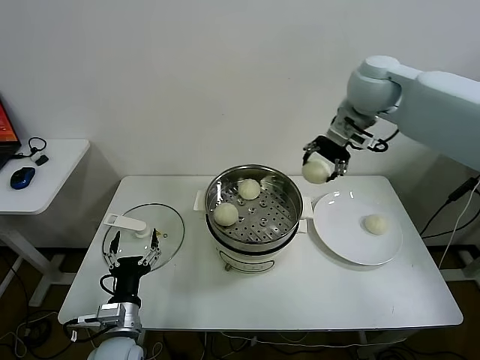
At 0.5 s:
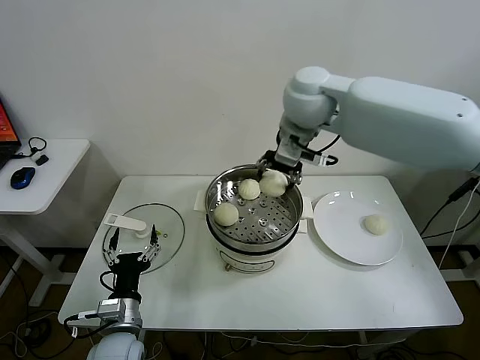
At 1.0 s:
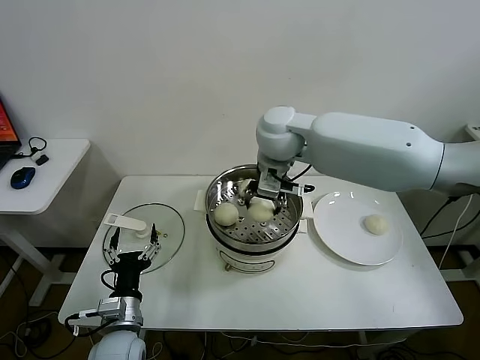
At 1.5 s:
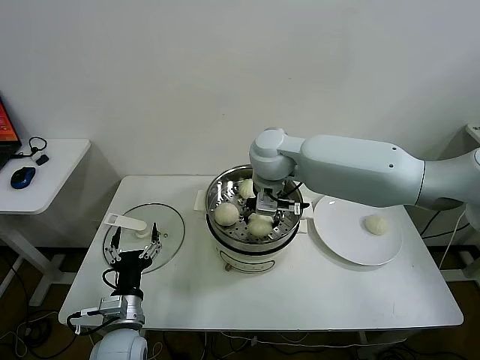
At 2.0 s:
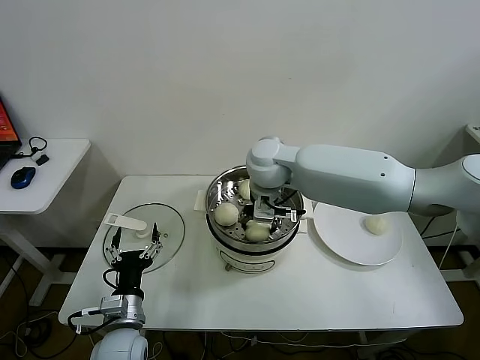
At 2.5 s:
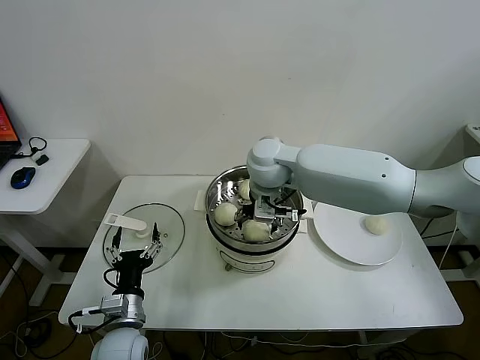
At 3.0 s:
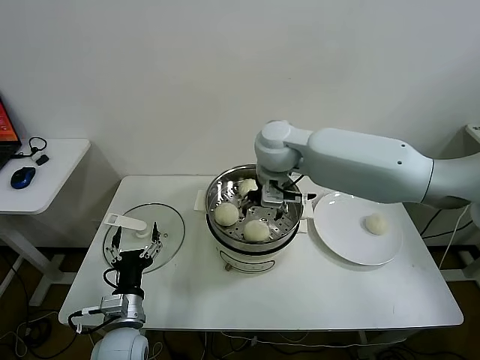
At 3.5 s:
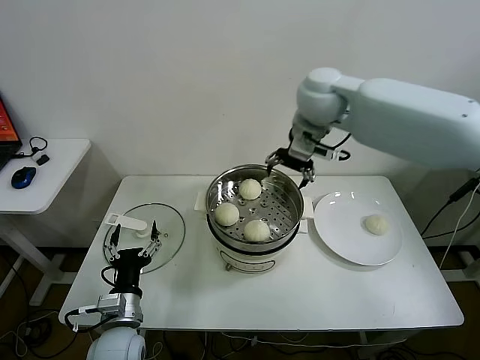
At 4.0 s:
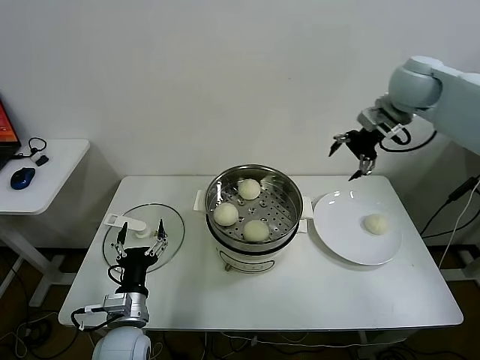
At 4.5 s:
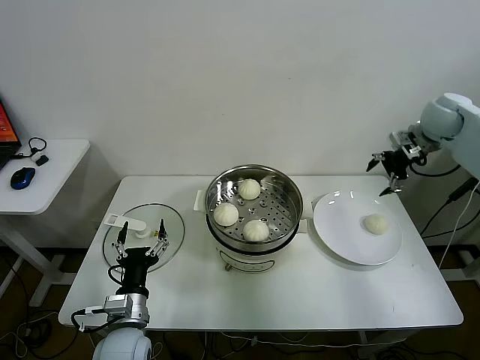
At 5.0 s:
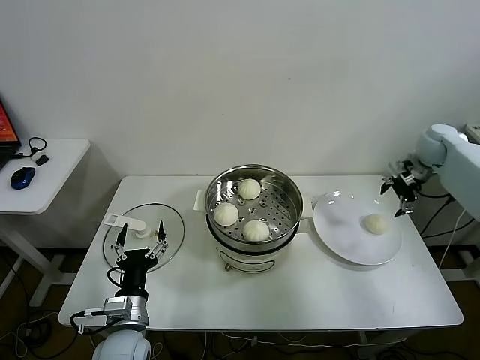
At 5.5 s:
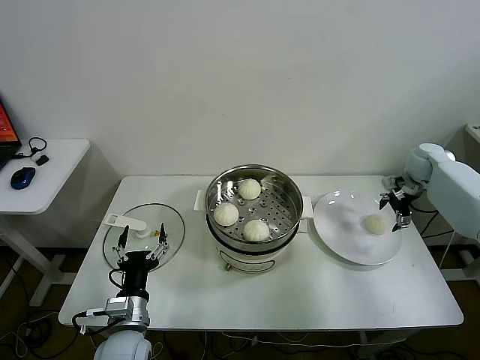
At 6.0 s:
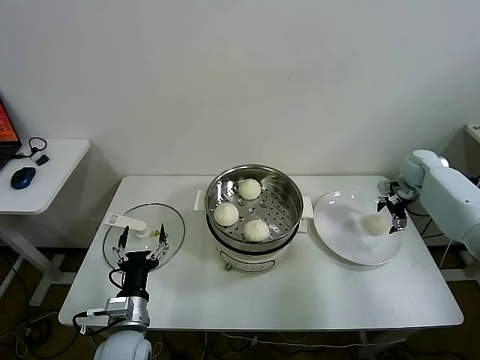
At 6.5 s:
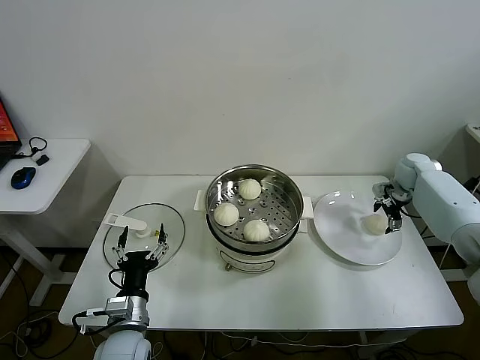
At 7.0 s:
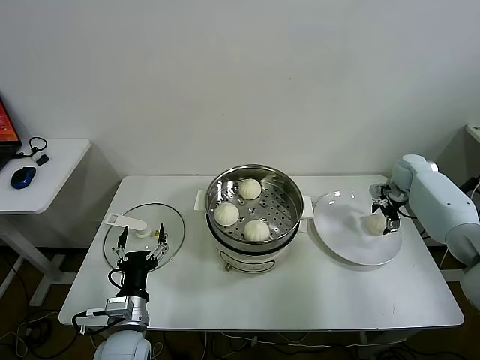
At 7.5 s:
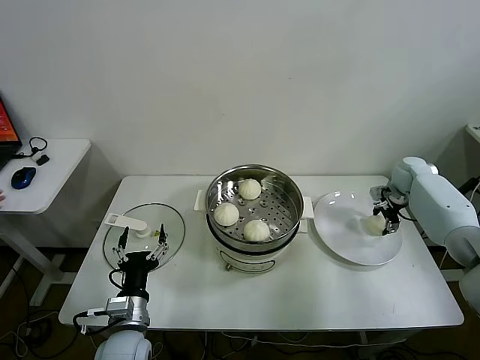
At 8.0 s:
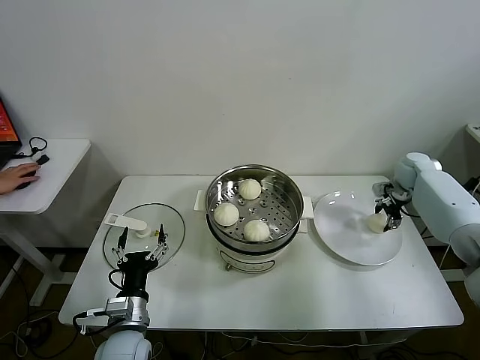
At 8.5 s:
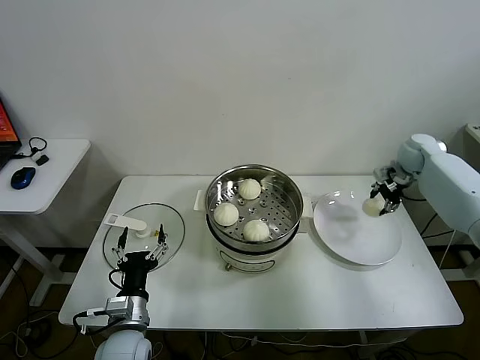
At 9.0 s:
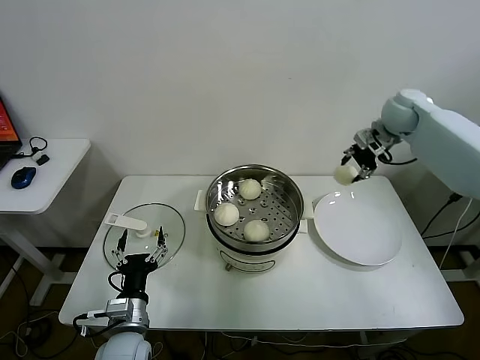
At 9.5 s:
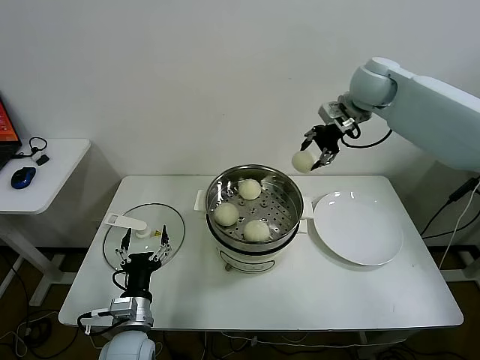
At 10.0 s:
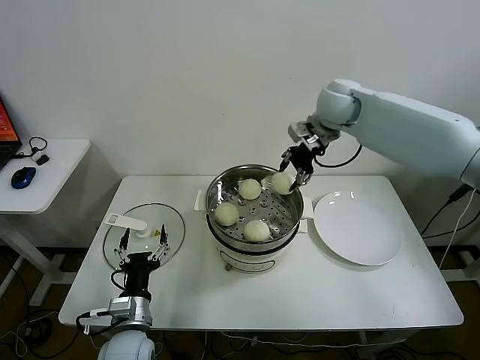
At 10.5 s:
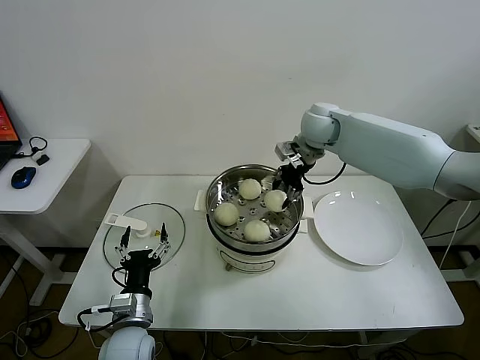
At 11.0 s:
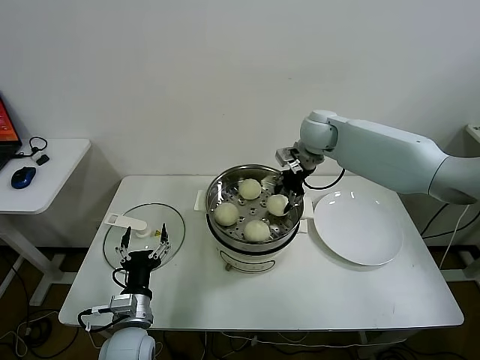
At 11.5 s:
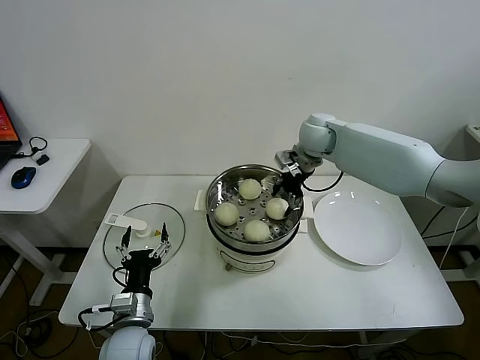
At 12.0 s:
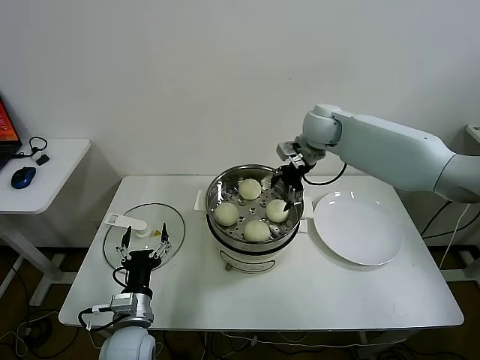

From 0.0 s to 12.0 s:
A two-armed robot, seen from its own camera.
Task of the whole recording: take steamed baozi put them in steamer.
Step, from 0.0 s to 2.5 s: Place the baozi on the steamer with right gripper.
Step, from 3.0 s to 7.5 s: Grasp the baozi in the plate with right gripper.
Step, from 8.0 s to 11.5 s: Place the baozi on the steamer with right gripper.
From 0.0 s to 2.0 s: The right gripper moves to the left and downward, some 25 cm.
From 2.0 s to 4.0 s: The right gripper heads to the right and upward, covering about 30 cm, and opens up.
From 4.0 s to 6.0 s: The right gripper moves downward and to the right, some 30 cm.
From 6.0 s to 8.0 s: The right gripper closes up.
From 8.0 s to 10.0 s: The right gripper is displaced to the left and upward by approximately 35 cm.
From 10.0 s to 12.0 s: The right gripper shifts about 5 cm downward, and opens up.

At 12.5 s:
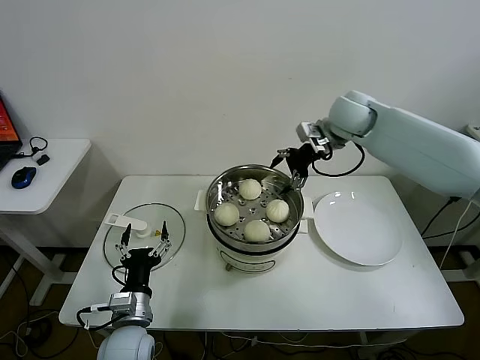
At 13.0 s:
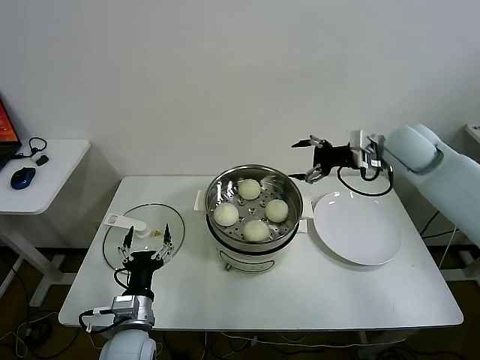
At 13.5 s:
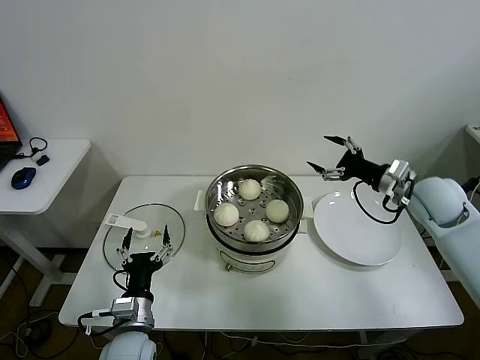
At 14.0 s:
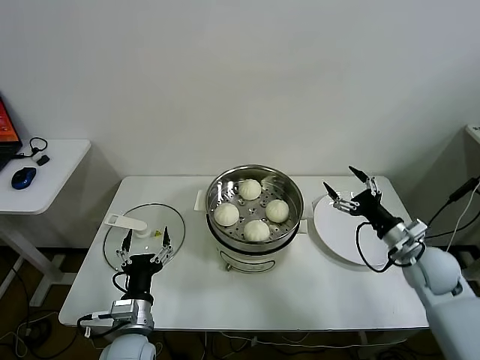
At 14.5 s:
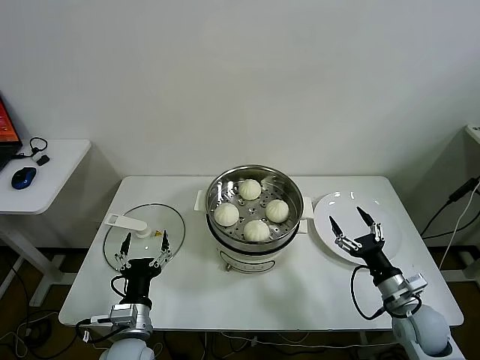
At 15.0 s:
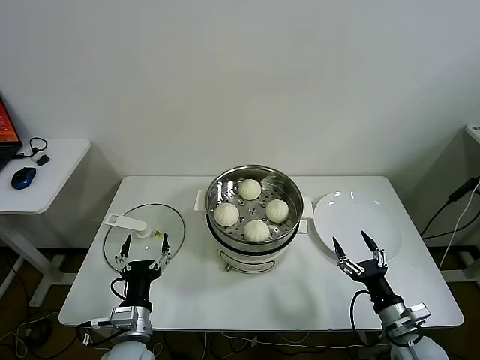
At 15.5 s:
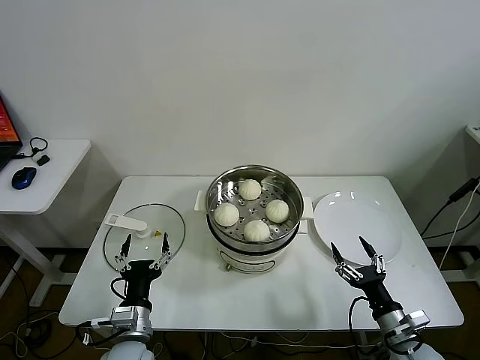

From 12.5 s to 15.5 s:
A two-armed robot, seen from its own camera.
Task of the whole recording: take steamed baozi put them in steamer.
From 12.5 s to 14.0 s: The right gripper is displaced backward, downward and to the right by about 35 cm.
From 14.0 s to 15.5 s: The right gripper moves backward and downward, roughly 20 cm.

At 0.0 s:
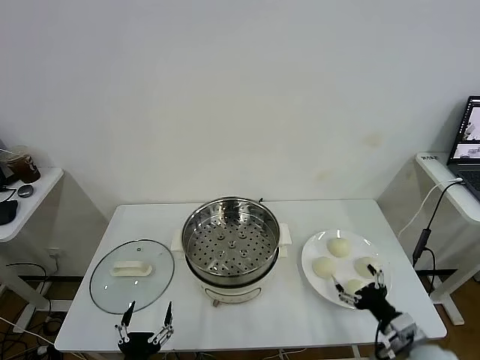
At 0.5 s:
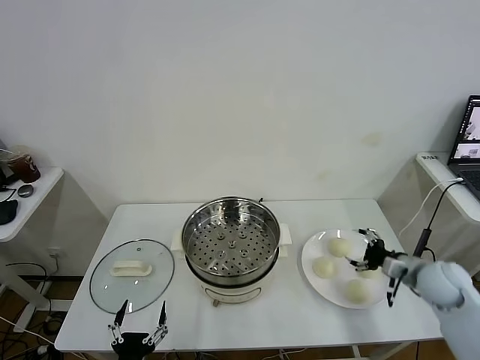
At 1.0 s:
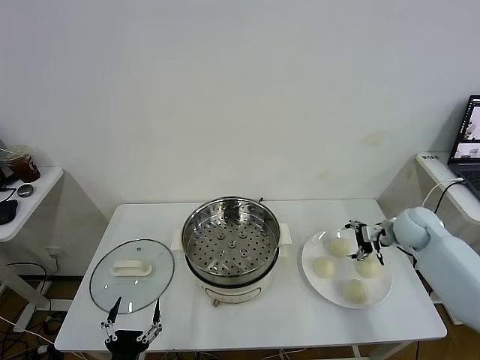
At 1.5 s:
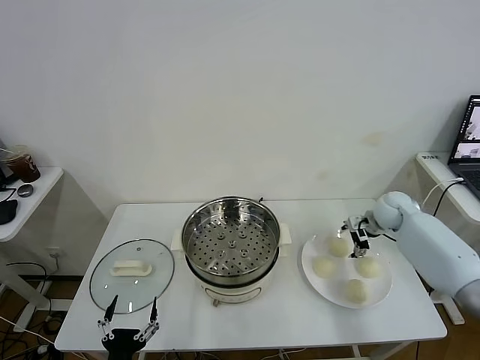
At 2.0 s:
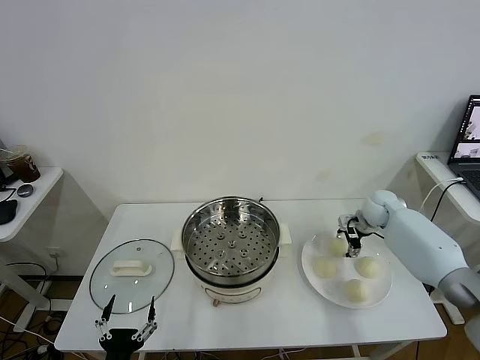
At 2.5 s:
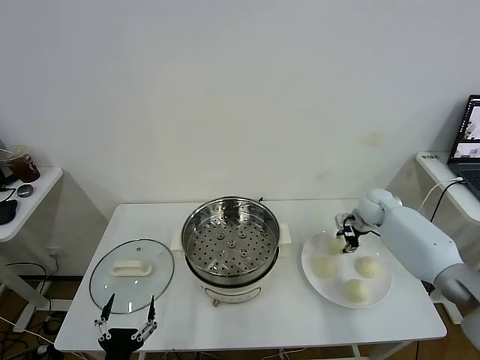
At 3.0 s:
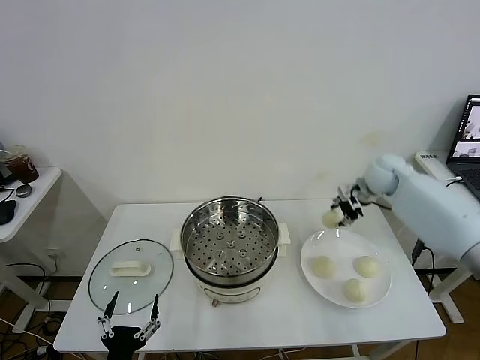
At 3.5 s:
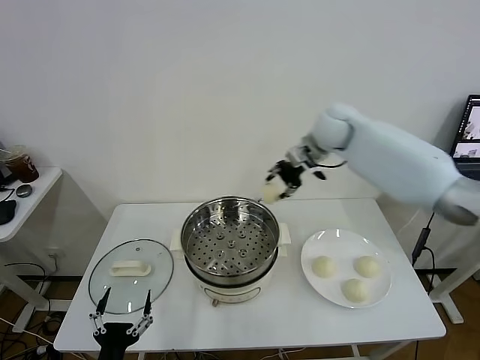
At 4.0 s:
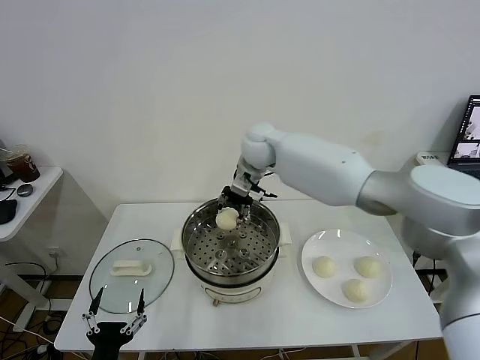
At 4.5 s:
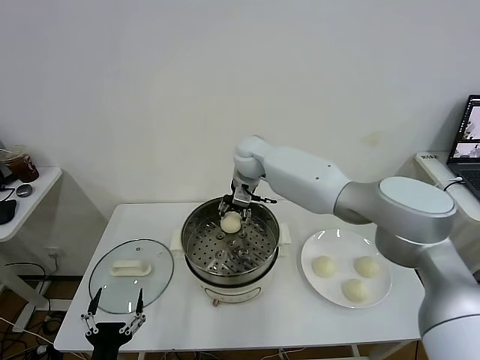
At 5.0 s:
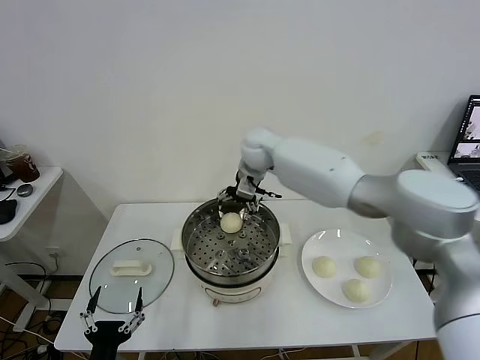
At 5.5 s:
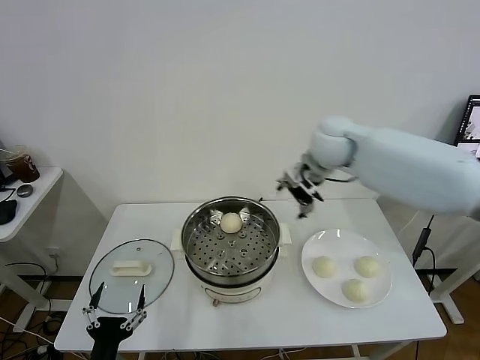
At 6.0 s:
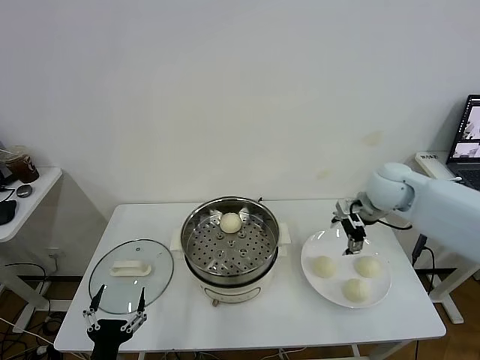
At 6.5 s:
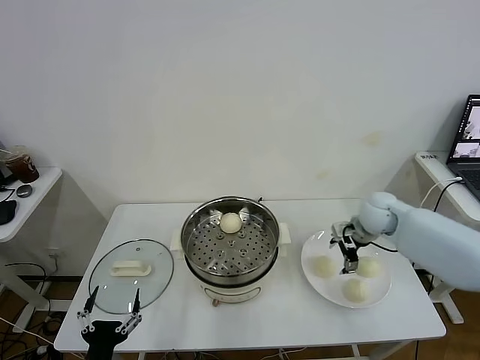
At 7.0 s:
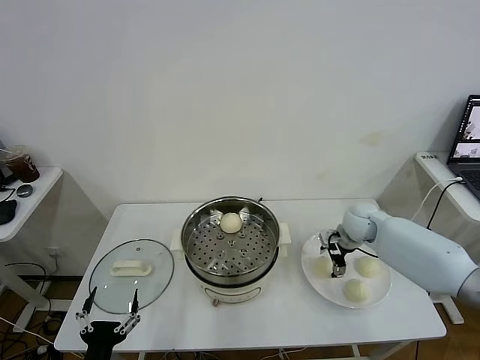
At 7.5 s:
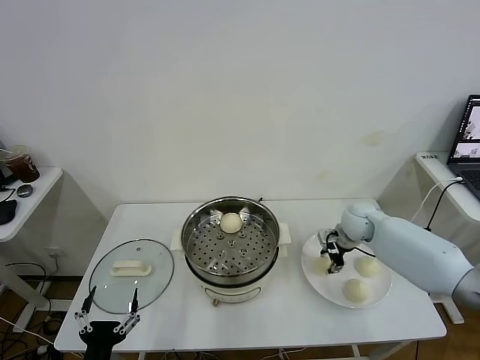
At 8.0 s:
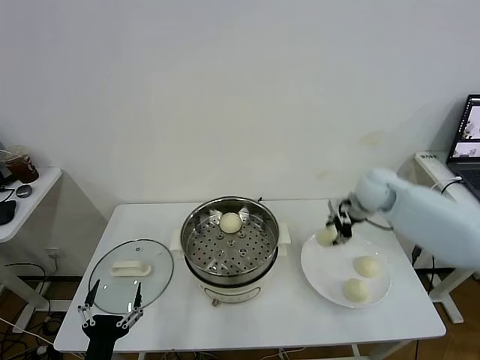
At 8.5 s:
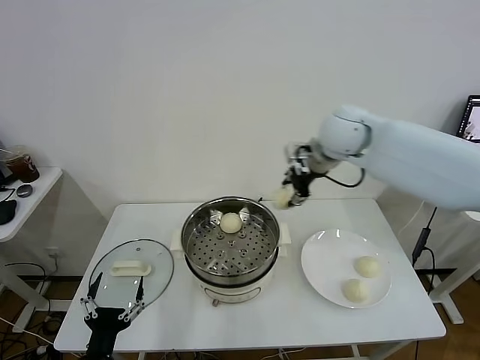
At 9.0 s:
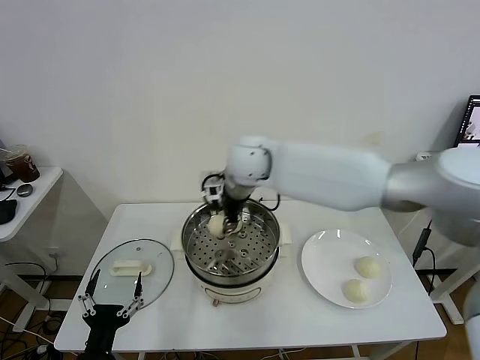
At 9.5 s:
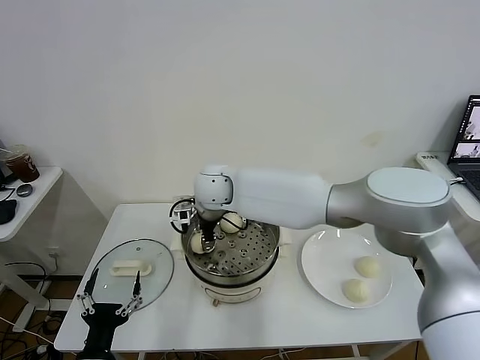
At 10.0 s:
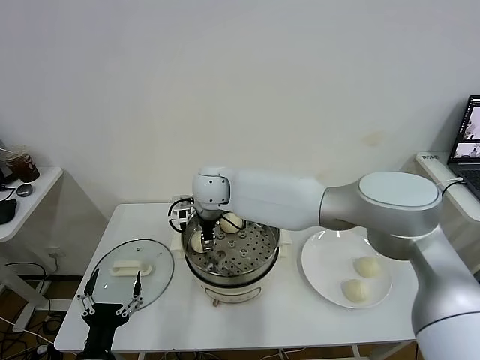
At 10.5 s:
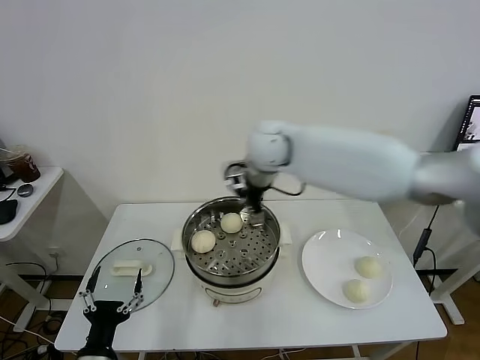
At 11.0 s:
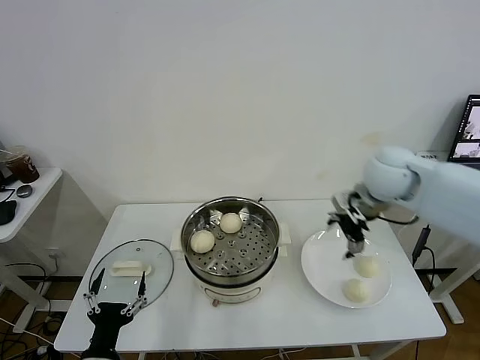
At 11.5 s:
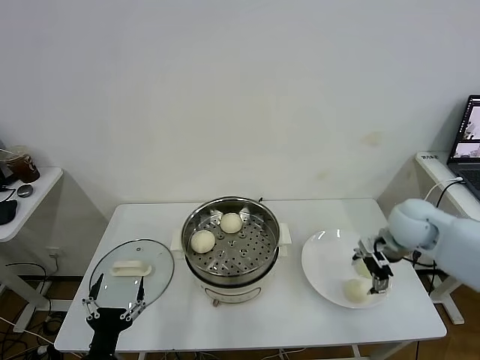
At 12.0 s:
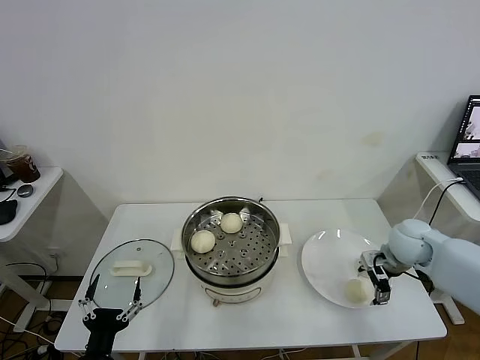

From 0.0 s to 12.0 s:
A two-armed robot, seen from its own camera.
Task of the whole recording: take steamed baozi put them in steamer.
Step, from 0.0 s to 2.0 s: Grasp the baozi in the plate with right gripper.
Step, from 2.5 s to 5.0 s: Place the baozi on the steamer with right gripper.
Step, from 5.5 s to 7.0 s: Grasp the baozi in the plate with right gripper.
Step, from 7.5 s to 10.0 s: Place the baozi on the steamer with right gripper.
From 2.0 s to 4.0 s: The right gripper heads to the left and upward, covering roughly 40 cm, and closes up.
From 4.0 s to 6.0 s: The right gripper shifts about 30 cm to the right, and opens up.
From 6.0 s to 8.0 s: The right gripper goes downward and returns, about 10 cm each way, and closes.
From 8.0 s to 10.0 s: The right gripper is displaced to the left by roughly 35 cm, and opens.
From 10.0 s to 12.0 s: The right gripper moves to the right, roughly 40 cm.
